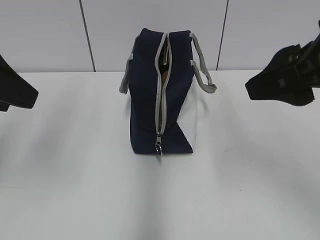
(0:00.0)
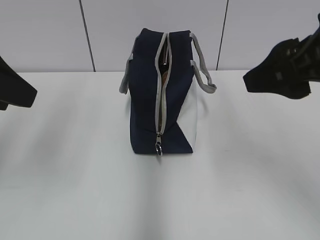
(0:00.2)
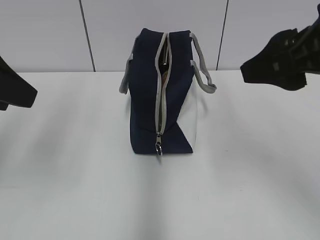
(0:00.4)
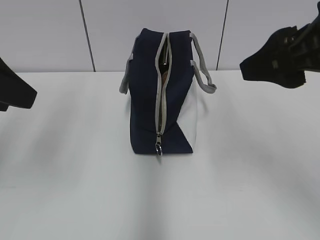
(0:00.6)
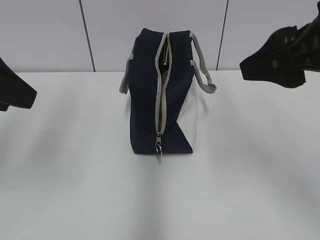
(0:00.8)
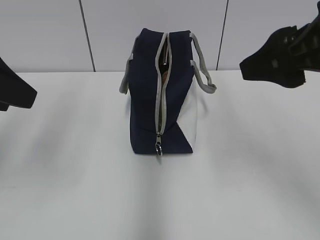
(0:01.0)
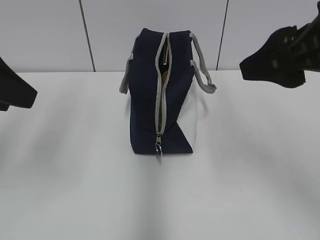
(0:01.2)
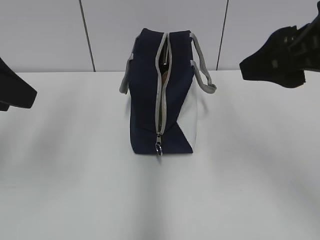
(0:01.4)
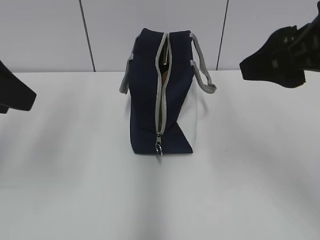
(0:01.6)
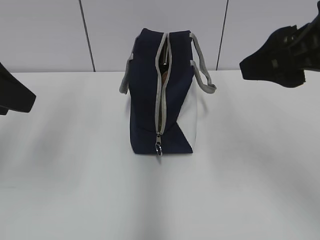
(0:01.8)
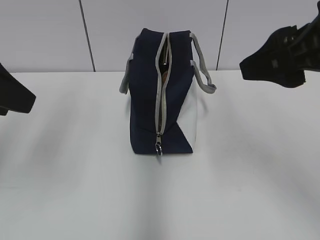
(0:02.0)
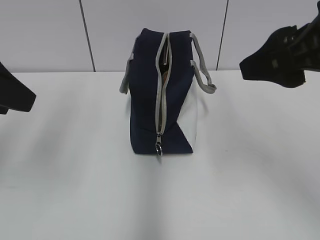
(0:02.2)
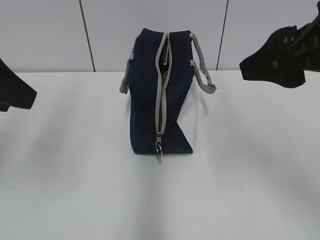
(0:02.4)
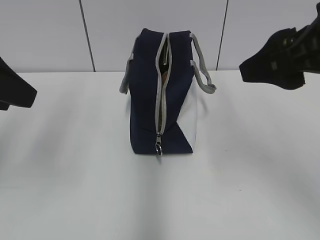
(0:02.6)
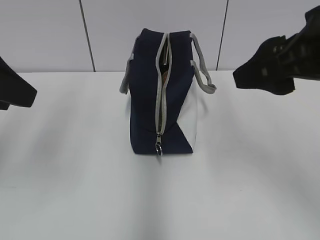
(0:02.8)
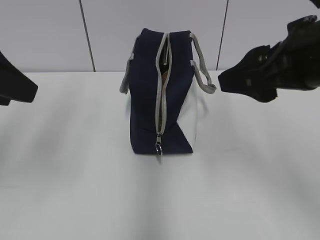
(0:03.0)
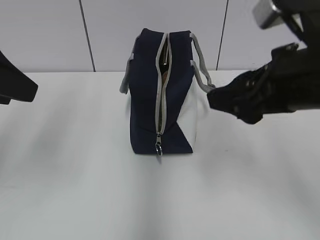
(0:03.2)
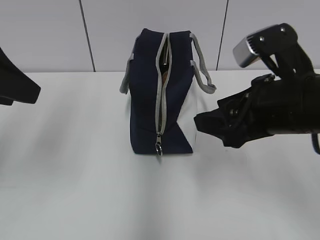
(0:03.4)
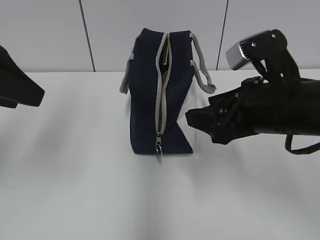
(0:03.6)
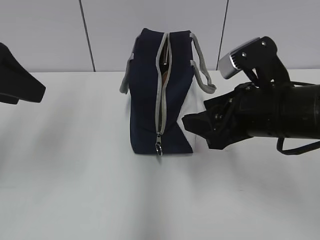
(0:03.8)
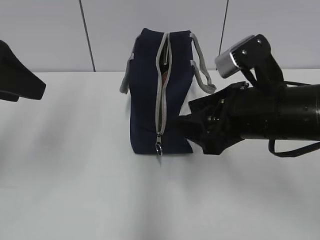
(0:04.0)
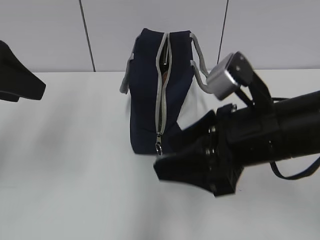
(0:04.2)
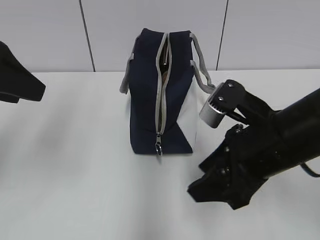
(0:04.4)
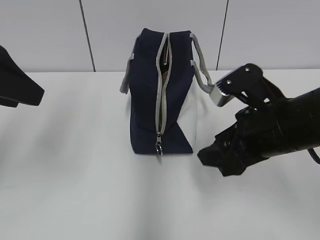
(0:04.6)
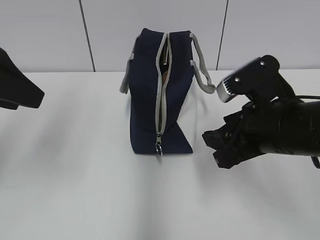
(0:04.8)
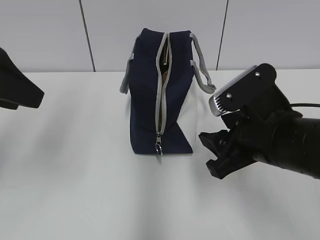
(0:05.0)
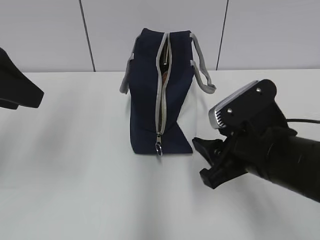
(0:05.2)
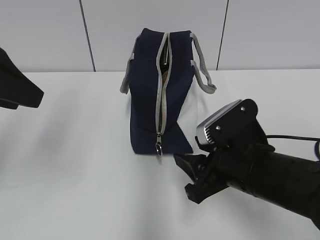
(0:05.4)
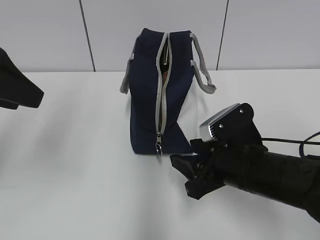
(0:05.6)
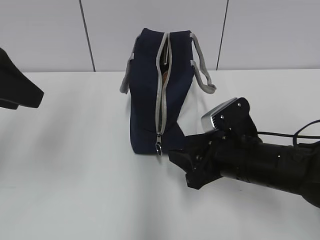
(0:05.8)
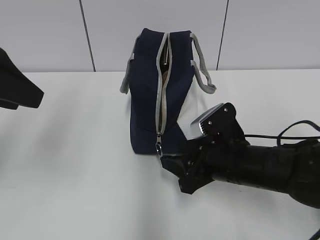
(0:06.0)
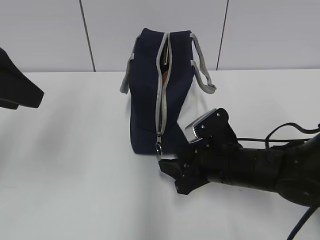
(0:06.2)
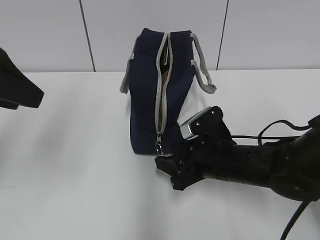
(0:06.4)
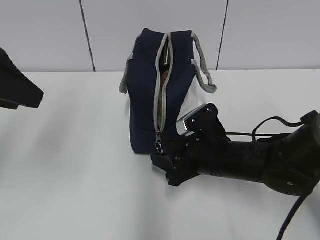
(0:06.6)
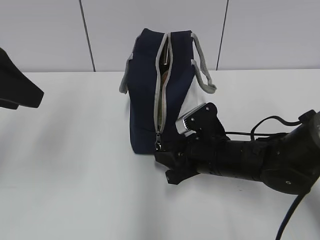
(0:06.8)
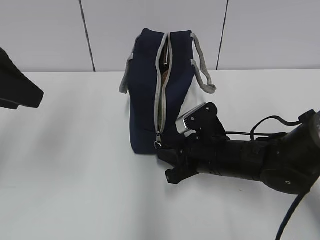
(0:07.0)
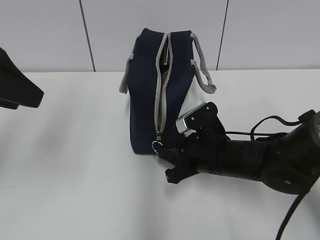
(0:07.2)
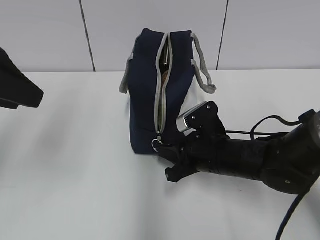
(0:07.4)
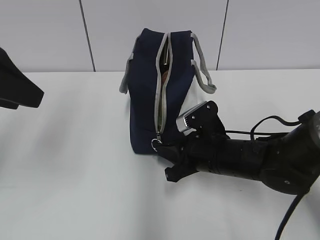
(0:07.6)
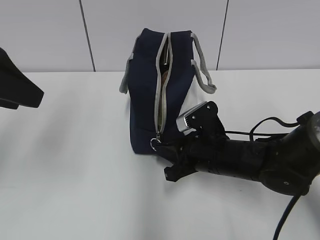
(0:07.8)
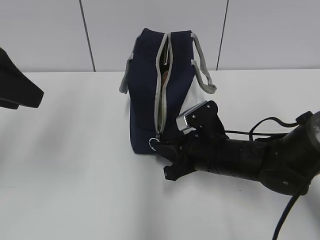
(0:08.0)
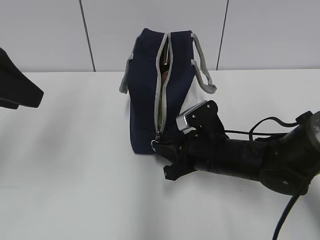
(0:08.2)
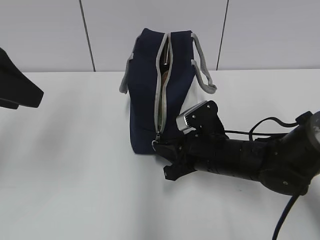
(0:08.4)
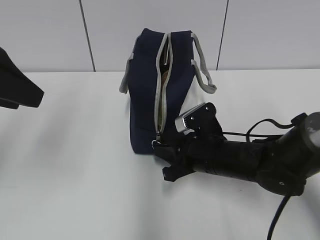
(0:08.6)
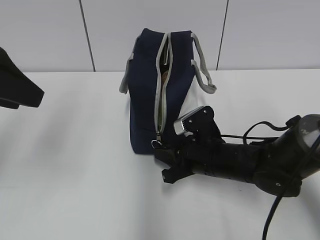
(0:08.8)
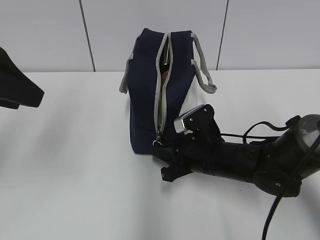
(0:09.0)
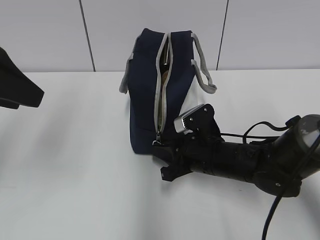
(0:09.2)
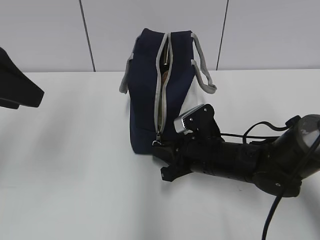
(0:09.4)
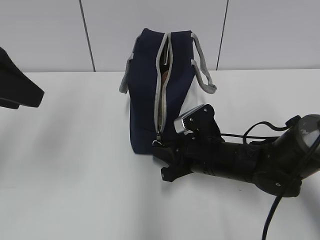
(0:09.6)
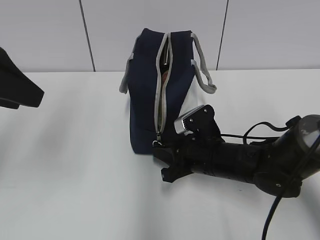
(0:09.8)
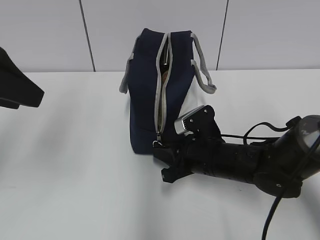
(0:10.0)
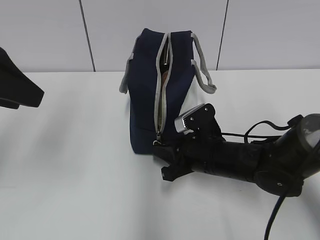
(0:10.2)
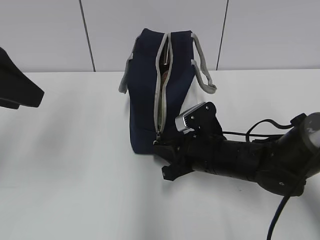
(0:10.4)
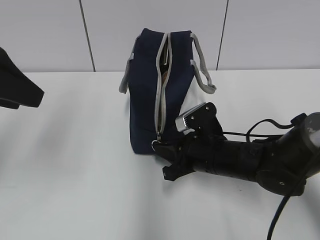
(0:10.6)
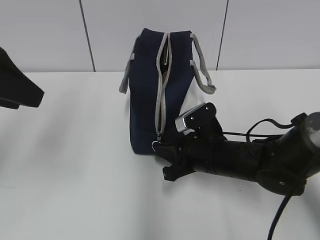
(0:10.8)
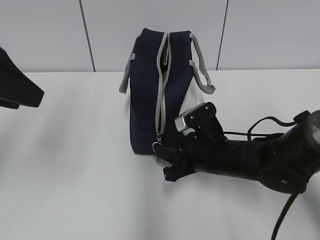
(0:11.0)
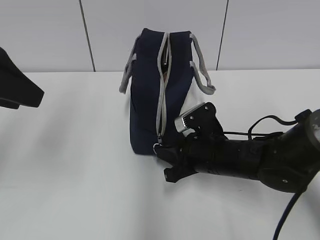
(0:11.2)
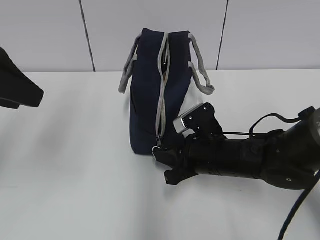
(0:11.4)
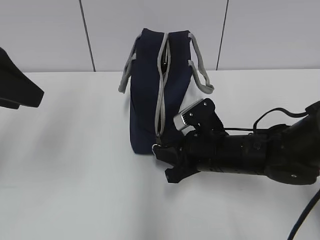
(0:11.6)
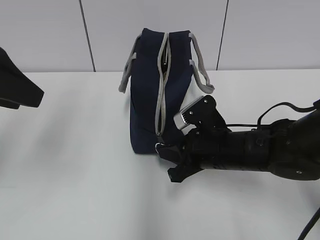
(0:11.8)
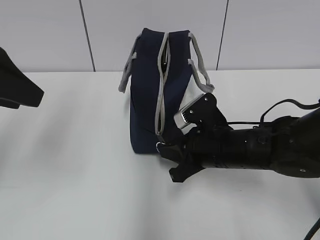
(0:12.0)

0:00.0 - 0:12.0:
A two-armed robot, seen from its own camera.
0:00.0 - 0:03.0: There are only small adjustments of the grippers.
0:03.0 - 0:04.4: The right gripper shifts approximately 10 cm downward.
0:04.4 - 0:06.0: The right gripper goes approximately 10 cm downward.
0:06.0 - 0:07.6: The right gripper closes up.
0:07.6 - 0:09.0: There are only small adjustments of the grippers.
0:09.0 - 0:10.4: The two grippers keep their place.
0:10.4 - 0:12.0: There are only small adjustments of the grippers.

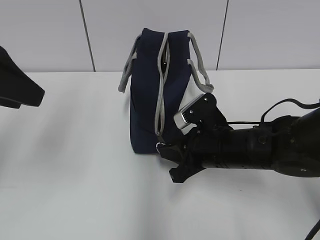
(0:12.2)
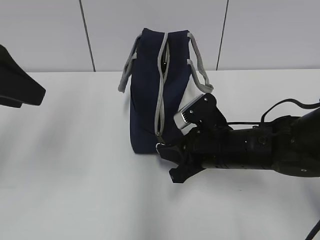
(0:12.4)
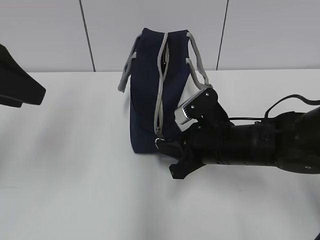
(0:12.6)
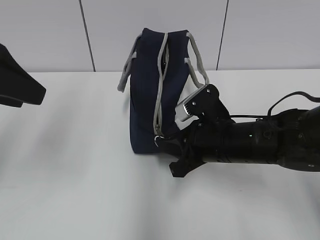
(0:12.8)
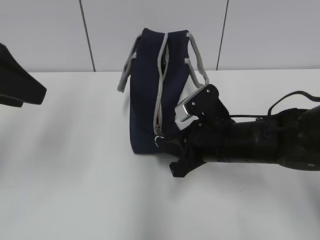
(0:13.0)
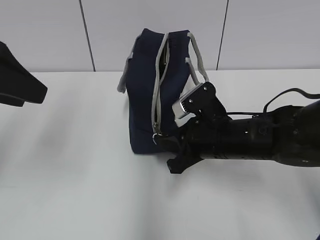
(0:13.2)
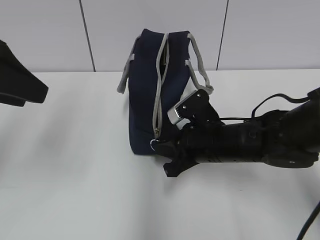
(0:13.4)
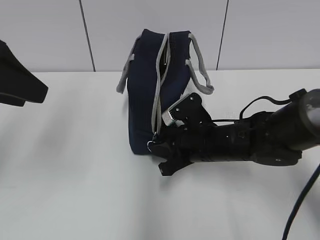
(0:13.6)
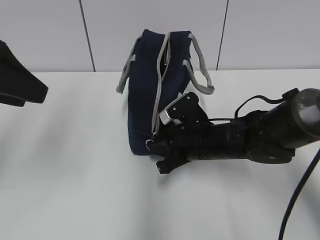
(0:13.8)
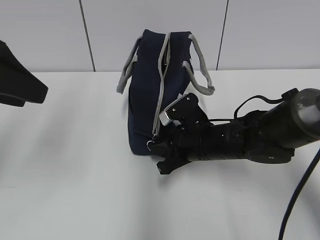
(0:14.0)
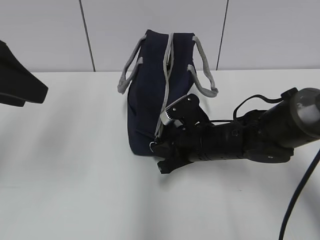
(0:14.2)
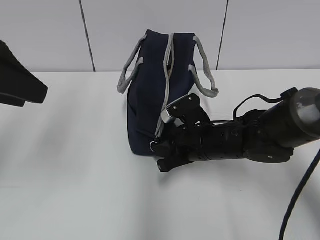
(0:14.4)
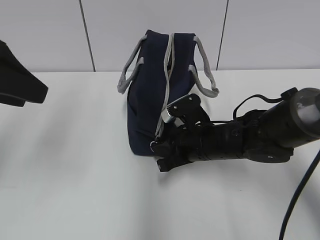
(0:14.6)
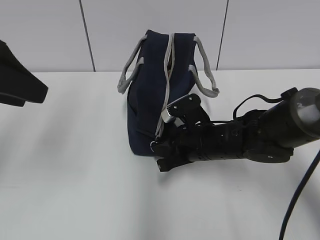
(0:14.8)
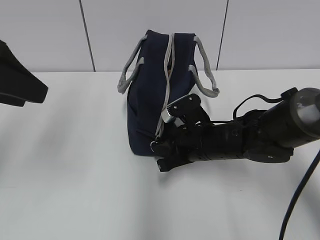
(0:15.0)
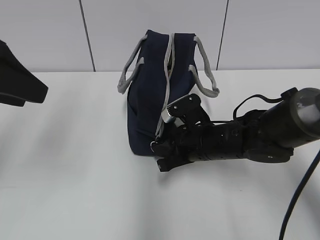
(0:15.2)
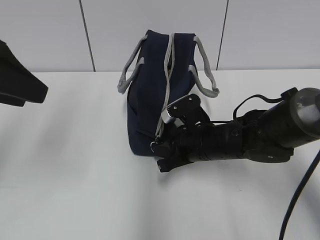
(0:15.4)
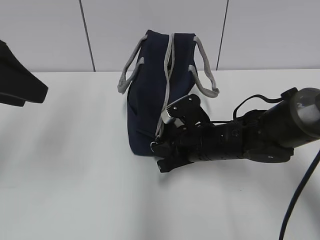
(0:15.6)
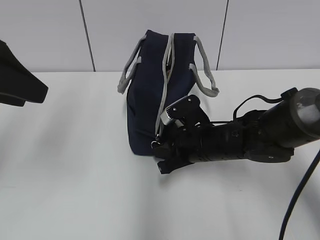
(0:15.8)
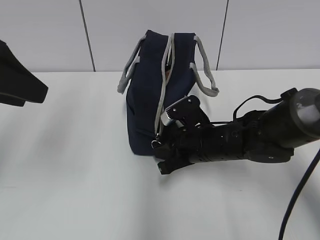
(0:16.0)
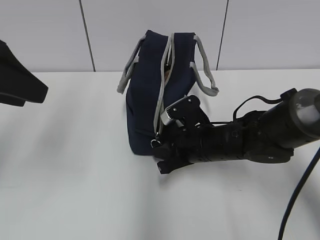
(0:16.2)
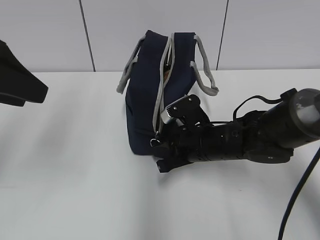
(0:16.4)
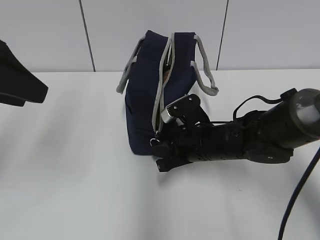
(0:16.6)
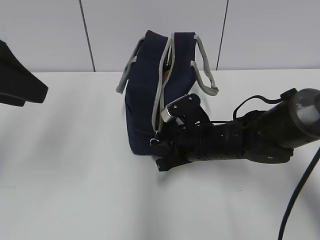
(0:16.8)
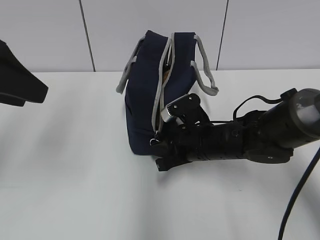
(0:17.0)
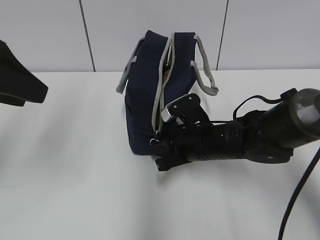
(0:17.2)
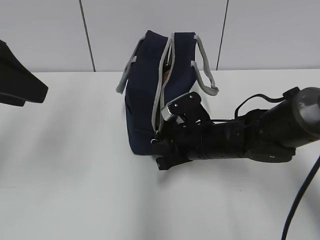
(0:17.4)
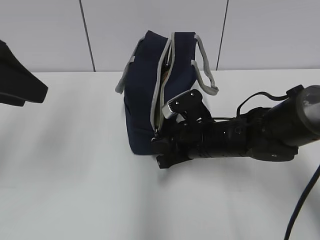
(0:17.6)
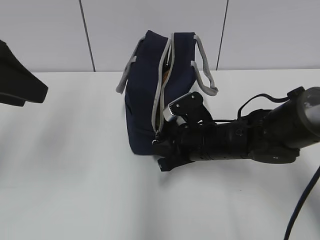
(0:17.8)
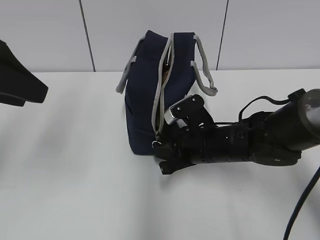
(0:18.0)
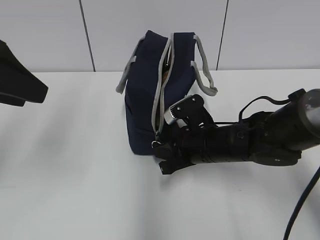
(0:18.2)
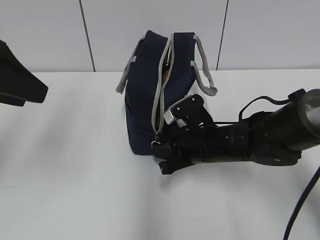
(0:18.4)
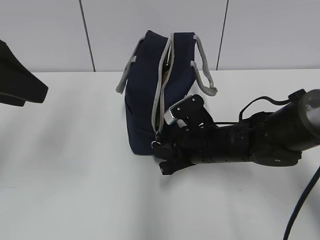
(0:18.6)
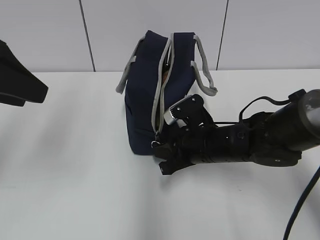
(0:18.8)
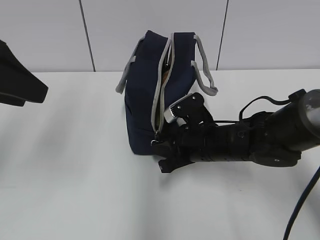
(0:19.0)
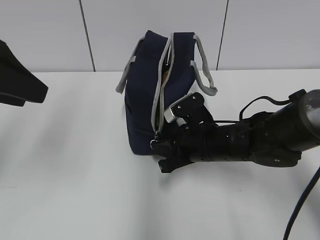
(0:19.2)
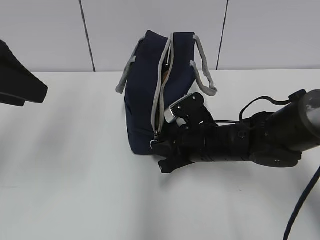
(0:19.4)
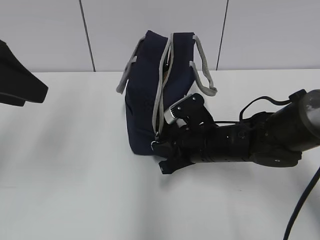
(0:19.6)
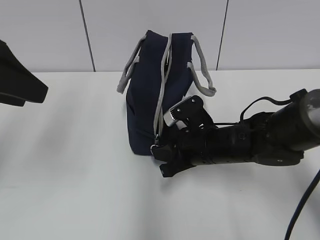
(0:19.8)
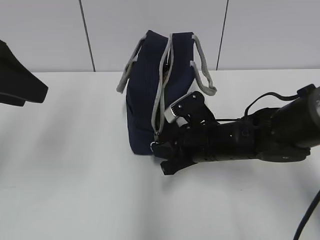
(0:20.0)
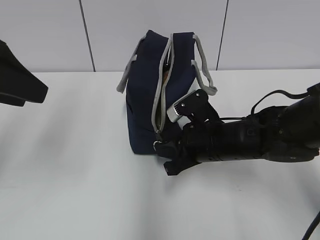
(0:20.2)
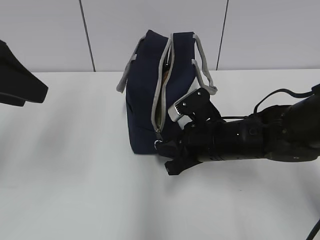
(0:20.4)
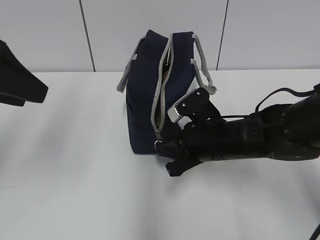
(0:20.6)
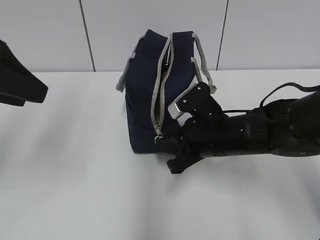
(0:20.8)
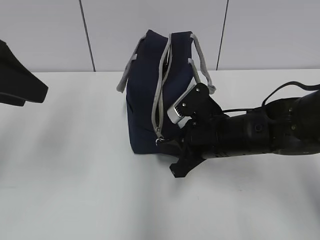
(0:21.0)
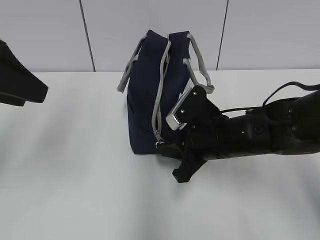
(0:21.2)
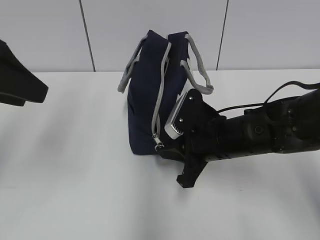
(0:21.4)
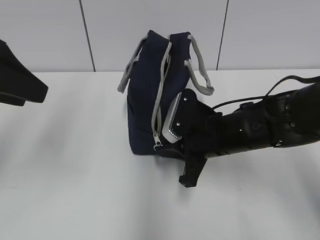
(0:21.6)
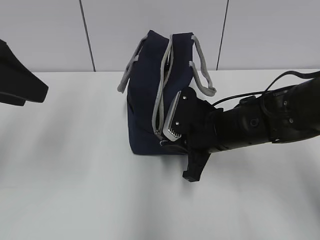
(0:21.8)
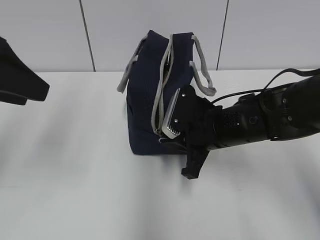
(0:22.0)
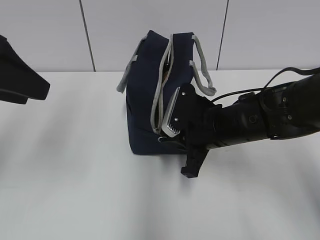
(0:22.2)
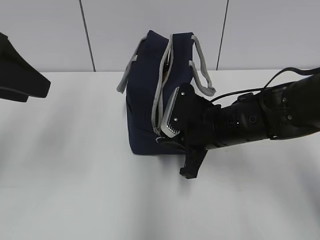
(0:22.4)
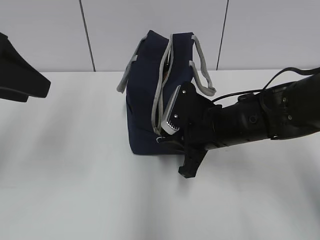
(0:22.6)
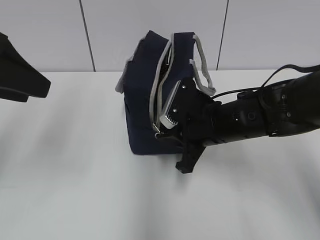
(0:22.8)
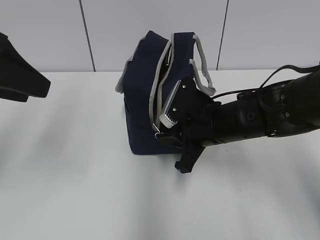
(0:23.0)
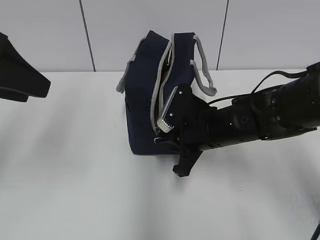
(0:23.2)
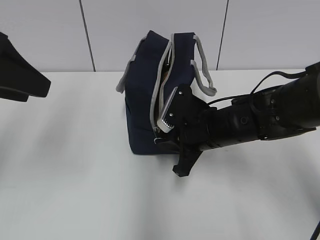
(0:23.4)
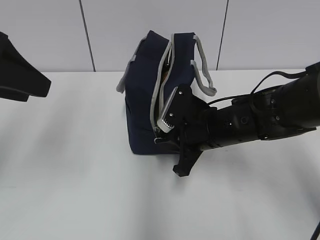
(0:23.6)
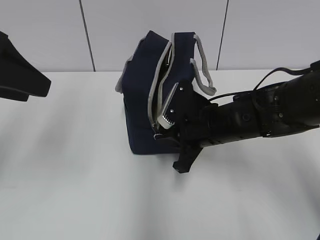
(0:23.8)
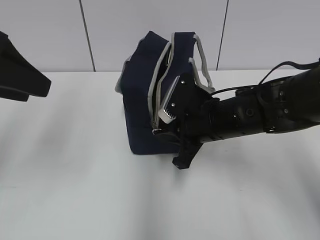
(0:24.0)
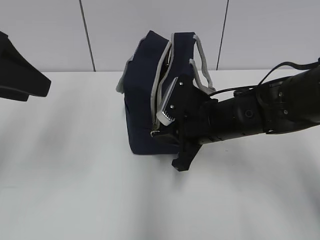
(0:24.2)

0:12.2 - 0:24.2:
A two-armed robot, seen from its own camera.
0:12.2 - 0:15.2: There are only small adjustments of the grippers.
0:15.2 - 0:19.8: Neither gripper changes place.
0:19.8 - 0:21.2: There are only small adjustments of the grippers.
0:22.6 - 0:24.2: There are only small adjustments of the grippers.
